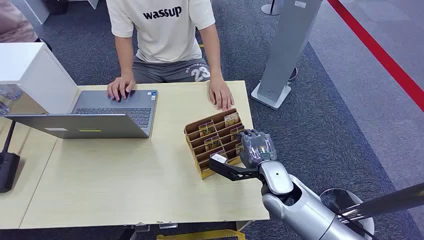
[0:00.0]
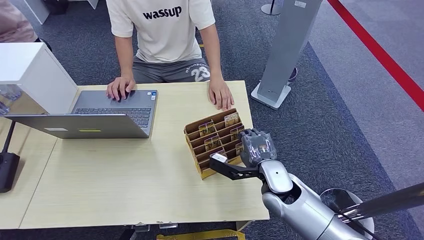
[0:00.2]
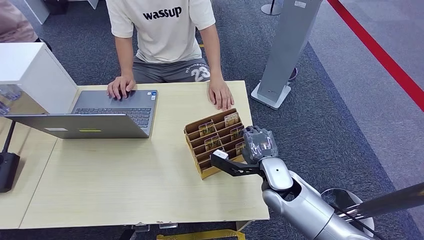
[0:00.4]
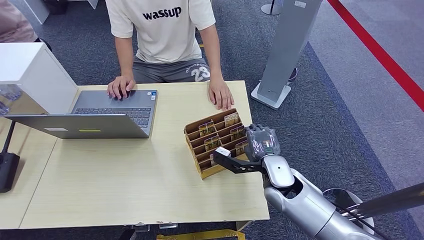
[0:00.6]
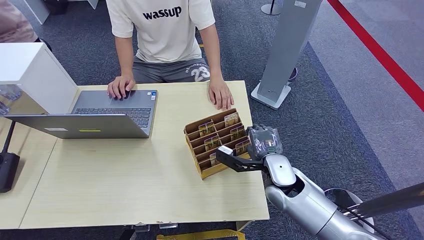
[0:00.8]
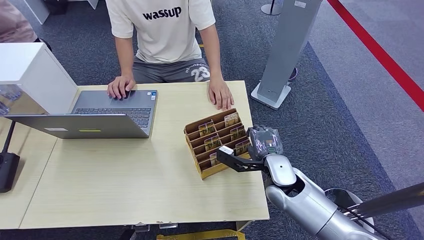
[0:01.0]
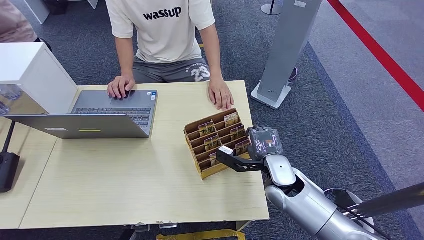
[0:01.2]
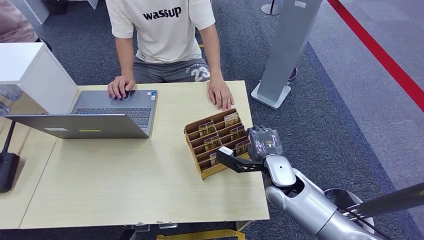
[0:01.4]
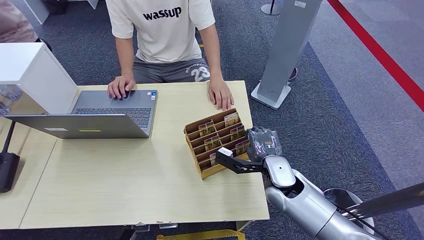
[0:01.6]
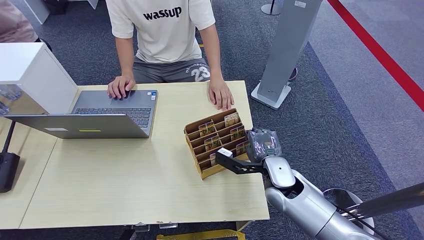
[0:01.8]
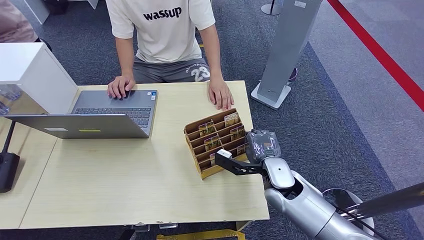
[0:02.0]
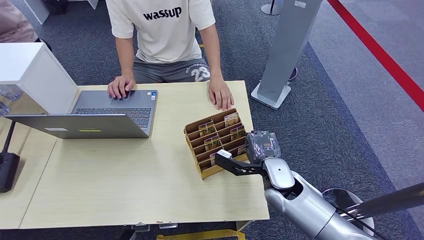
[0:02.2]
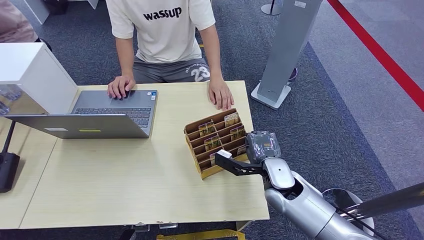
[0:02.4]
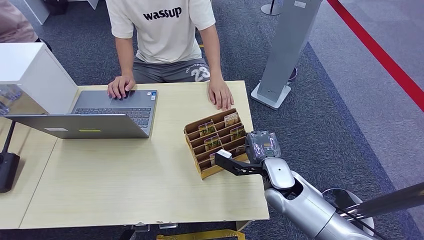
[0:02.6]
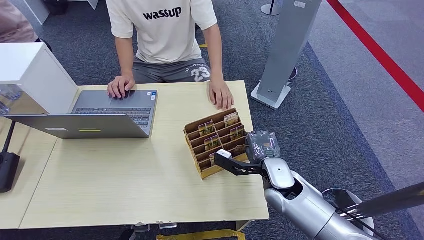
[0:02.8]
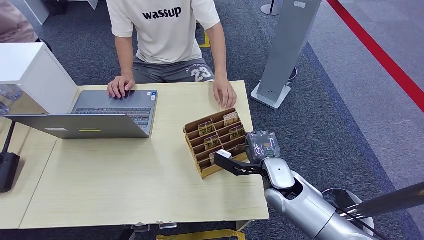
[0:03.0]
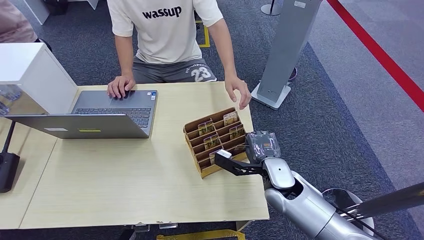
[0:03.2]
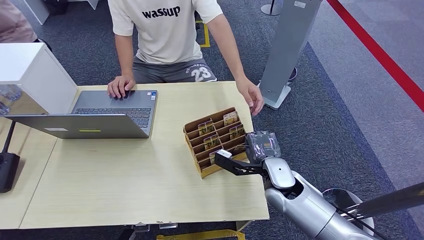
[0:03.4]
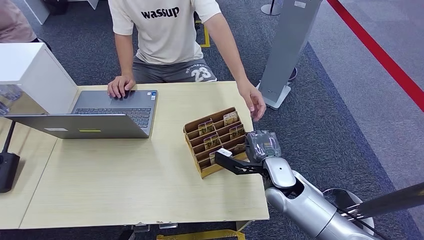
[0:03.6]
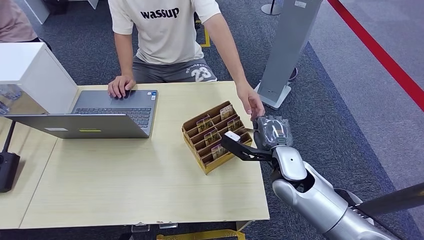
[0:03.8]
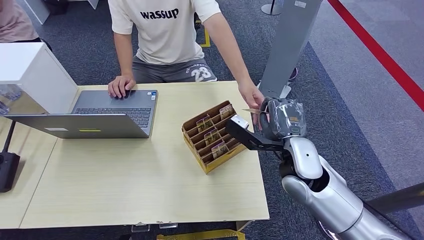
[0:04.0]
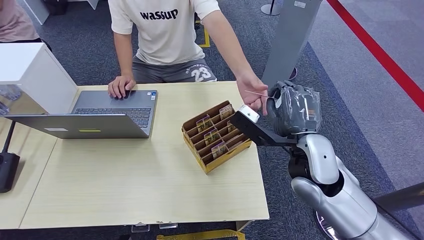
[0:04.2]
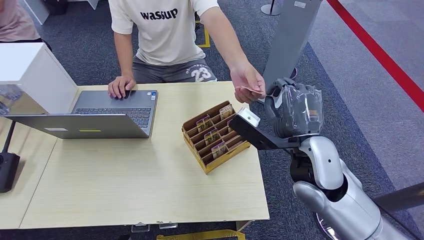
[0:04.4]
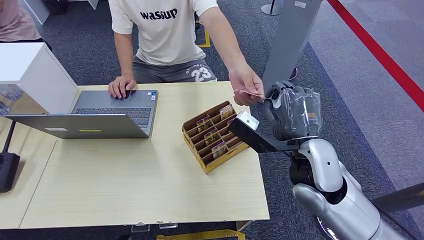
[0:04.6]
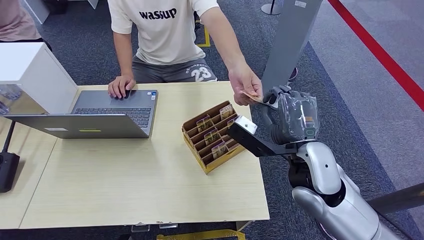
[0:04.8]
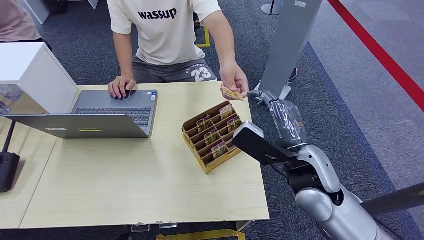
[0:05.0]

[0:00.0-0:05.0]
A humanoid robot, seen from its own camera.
Step, 0:00.0 to 0:02.8: Pick up the key card from the card box.
Step, 0:04.0 to 0:05.0: Hand the key card to the target.
0:01.6 to 0:03.4: Both hands stay put.
0:03.4 to 0:05.0: The right hand travels upward by roughly 15 cm.

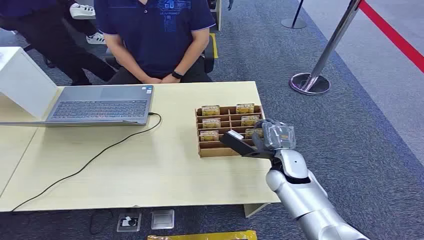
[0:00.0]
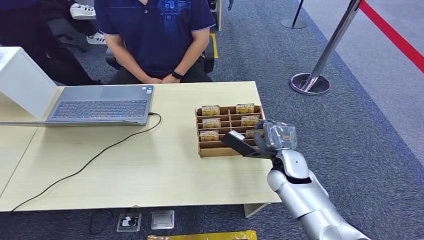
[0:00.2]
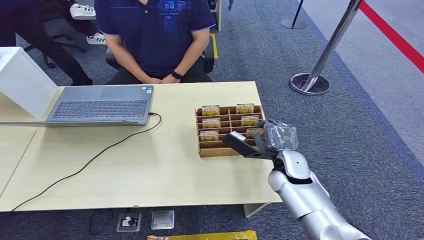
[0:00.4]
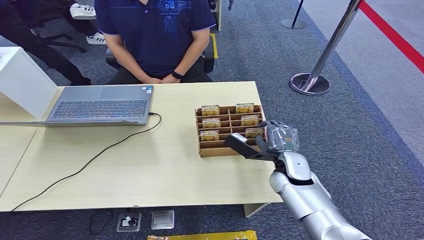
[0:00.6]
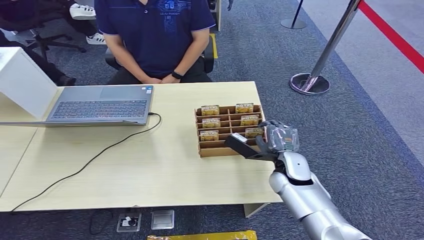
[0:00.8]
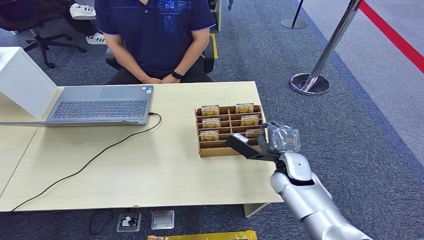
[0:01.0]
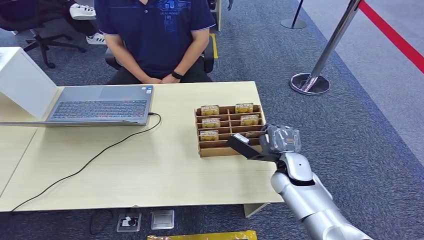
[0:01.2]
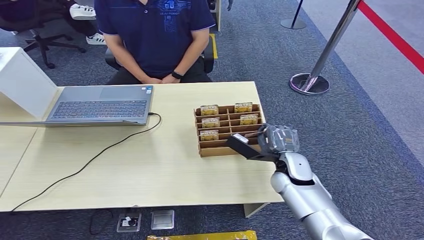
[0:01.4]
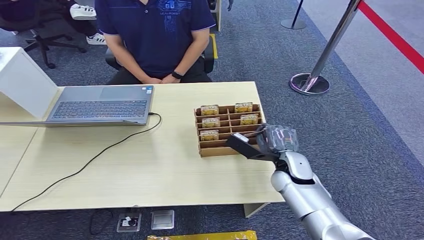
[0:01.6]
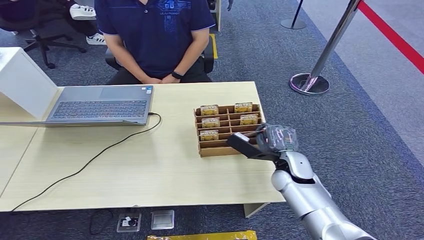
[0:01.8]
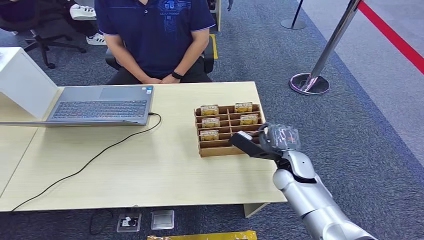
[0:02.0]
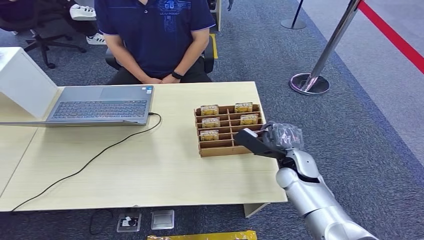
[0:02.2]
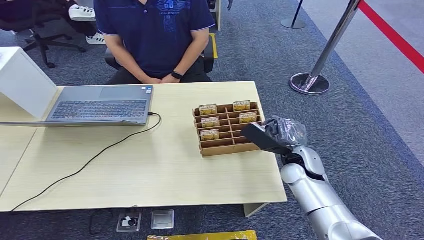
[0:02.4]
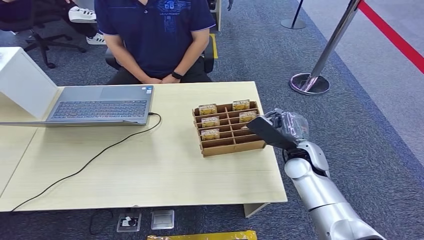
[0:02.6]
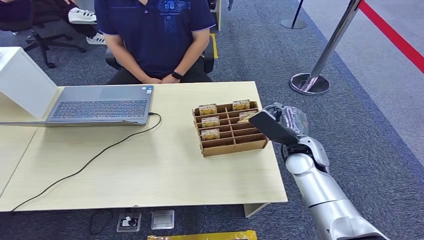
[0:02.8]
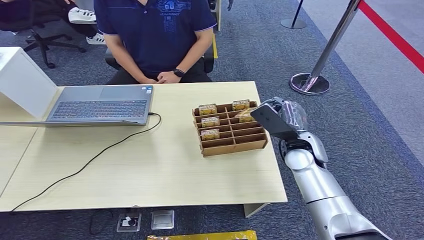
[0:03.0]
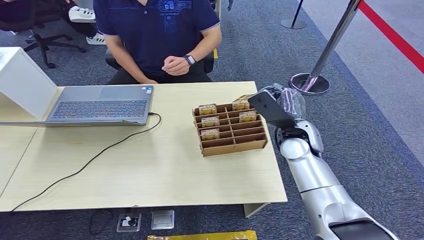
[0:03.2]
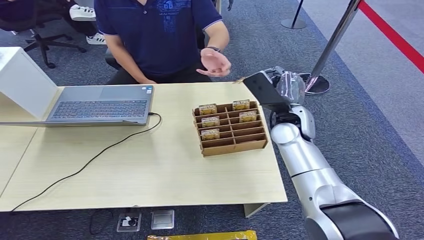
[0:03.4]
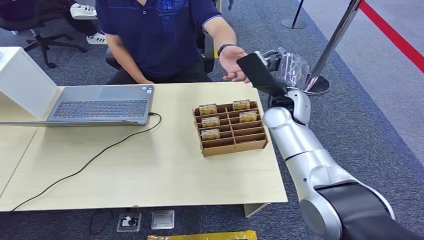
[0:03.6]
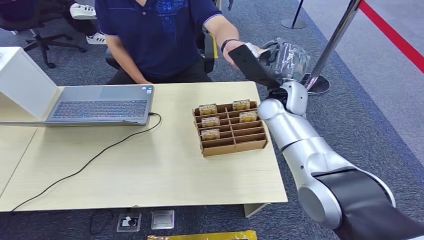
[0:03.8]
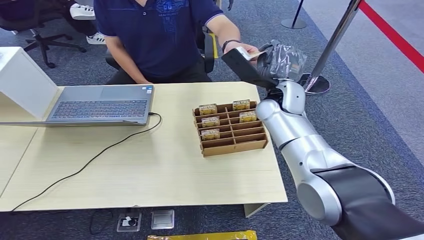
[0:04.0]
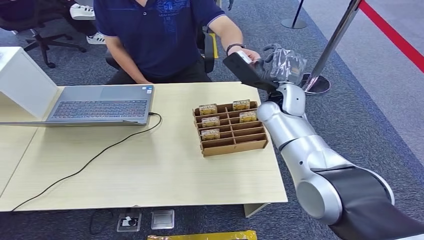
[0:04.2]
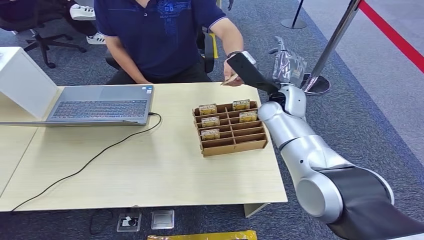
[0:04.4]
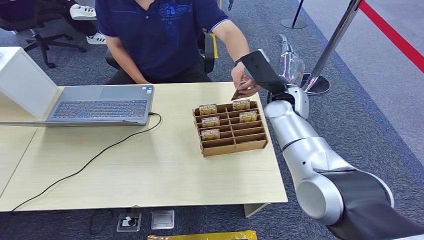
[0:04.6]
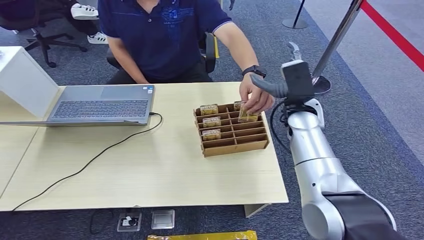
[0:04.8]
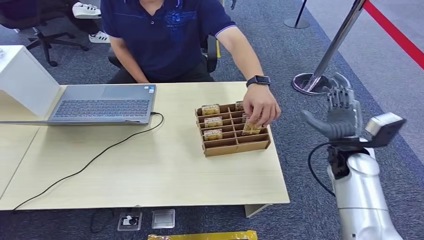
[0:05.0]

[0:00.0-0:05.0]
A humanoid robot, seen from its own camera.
Step, 0:00.0 to 0:03.0: Pick up the key card from the card box.
Step, 0:03.2 to 0:05.0: Hand the key card to the target.
0:01.6 to 0:03.4: The right hand goes some 15 cm upward and forward.
